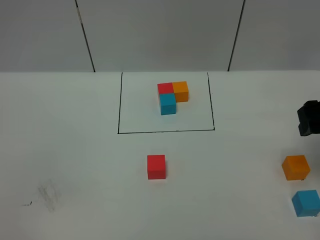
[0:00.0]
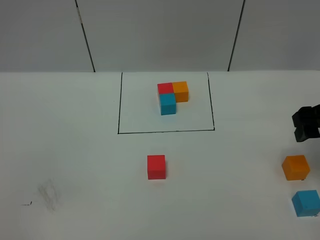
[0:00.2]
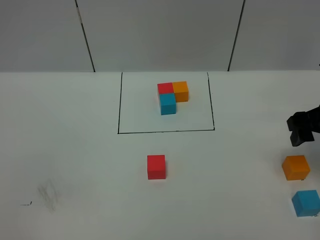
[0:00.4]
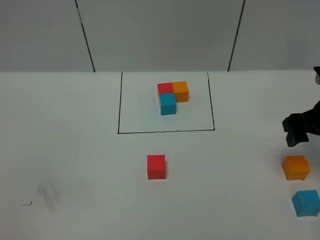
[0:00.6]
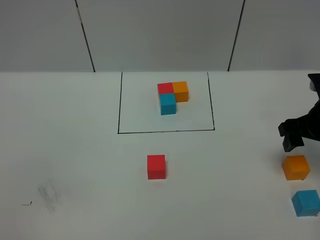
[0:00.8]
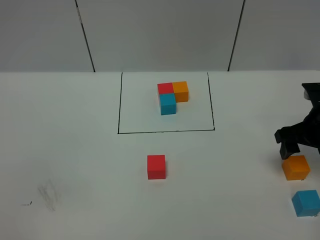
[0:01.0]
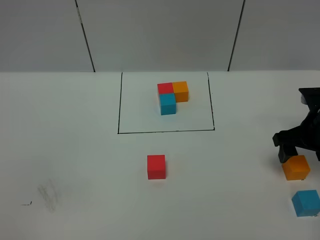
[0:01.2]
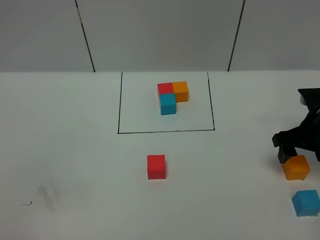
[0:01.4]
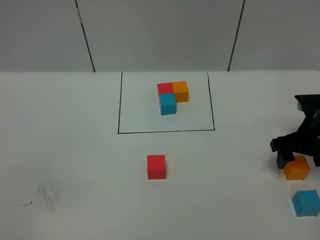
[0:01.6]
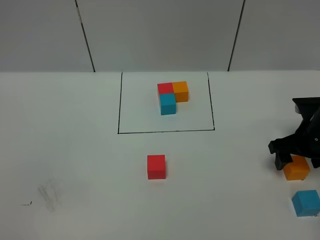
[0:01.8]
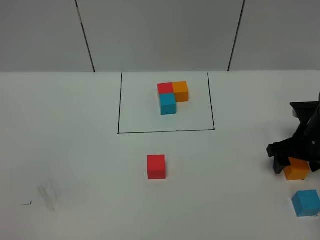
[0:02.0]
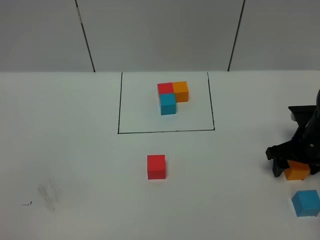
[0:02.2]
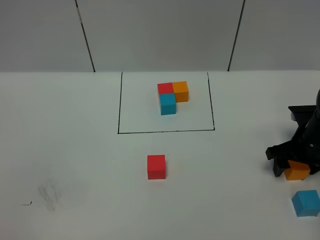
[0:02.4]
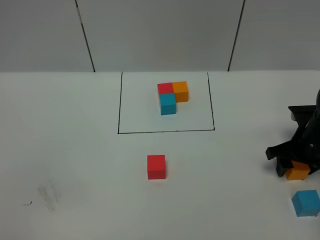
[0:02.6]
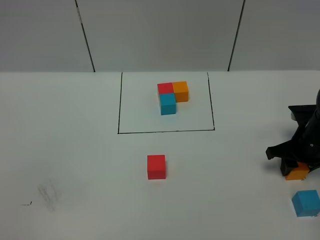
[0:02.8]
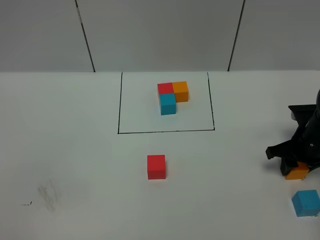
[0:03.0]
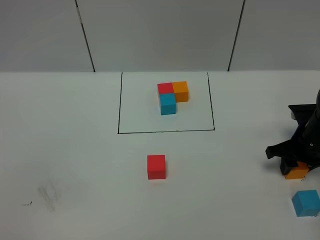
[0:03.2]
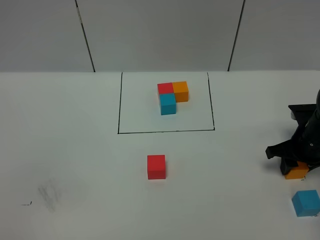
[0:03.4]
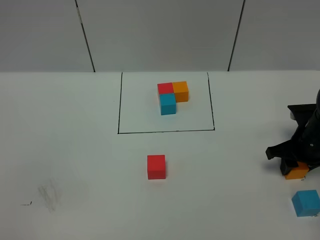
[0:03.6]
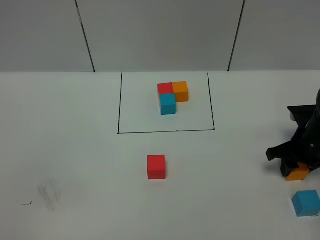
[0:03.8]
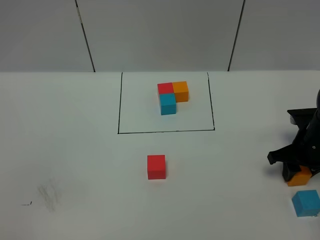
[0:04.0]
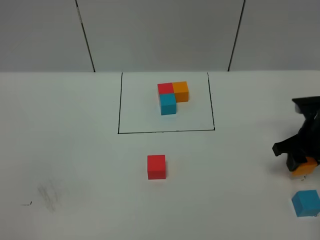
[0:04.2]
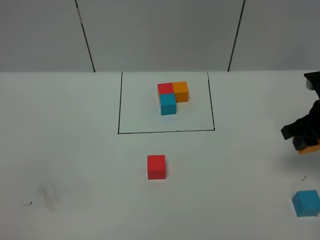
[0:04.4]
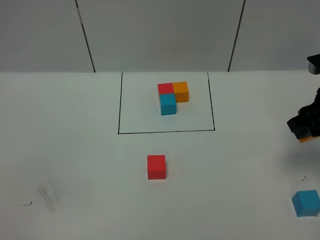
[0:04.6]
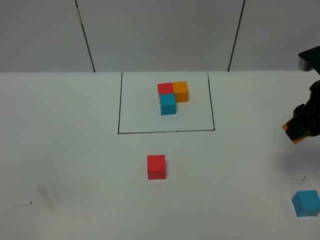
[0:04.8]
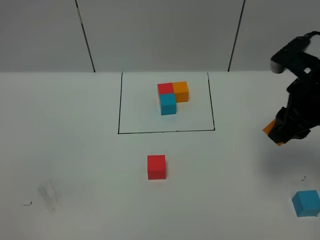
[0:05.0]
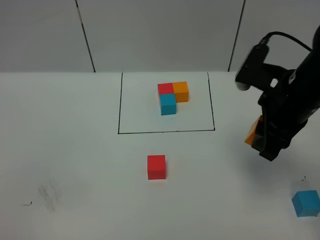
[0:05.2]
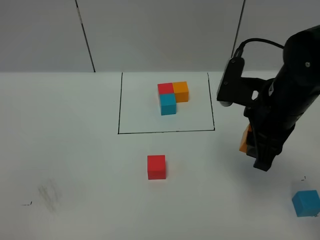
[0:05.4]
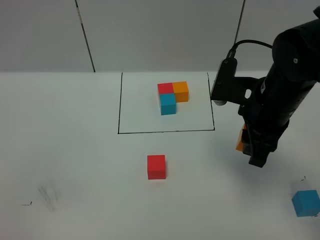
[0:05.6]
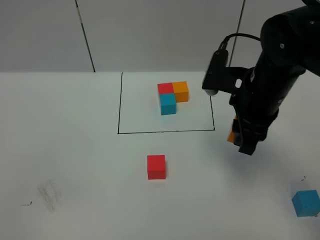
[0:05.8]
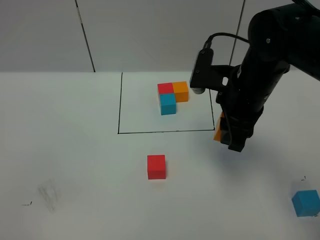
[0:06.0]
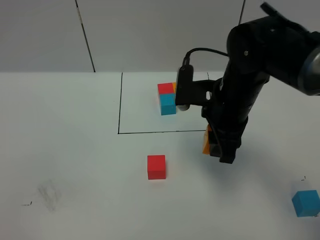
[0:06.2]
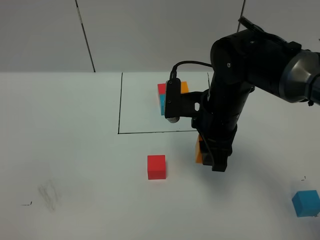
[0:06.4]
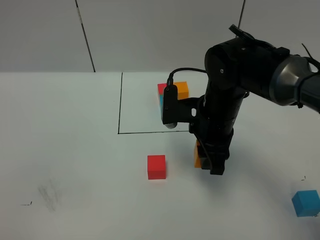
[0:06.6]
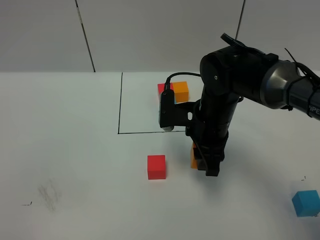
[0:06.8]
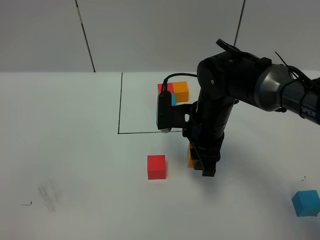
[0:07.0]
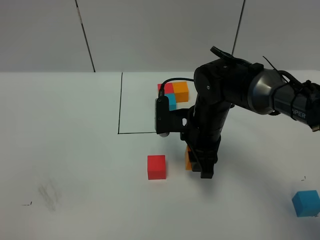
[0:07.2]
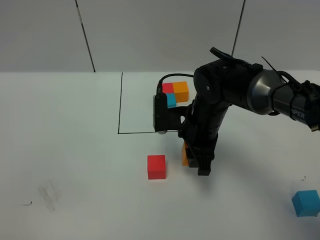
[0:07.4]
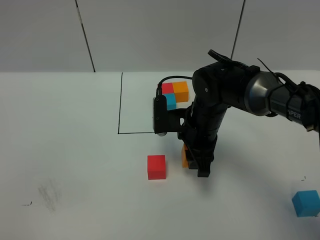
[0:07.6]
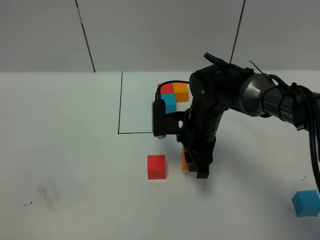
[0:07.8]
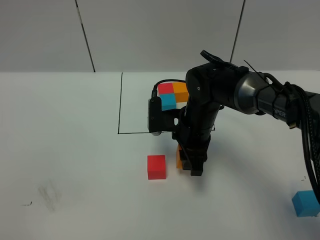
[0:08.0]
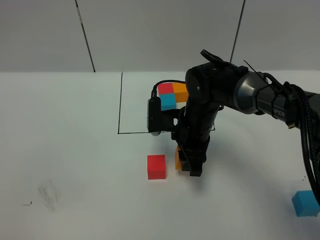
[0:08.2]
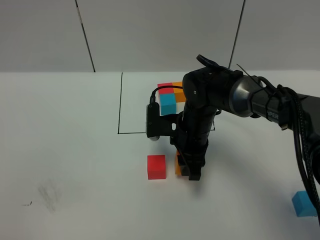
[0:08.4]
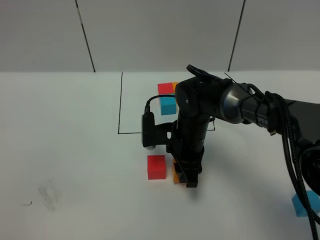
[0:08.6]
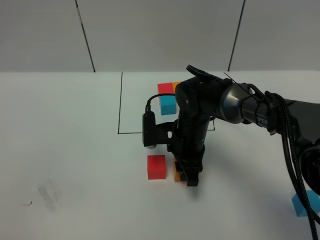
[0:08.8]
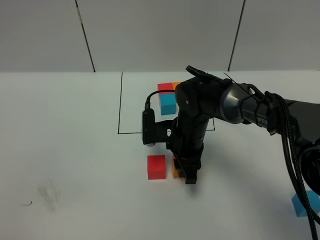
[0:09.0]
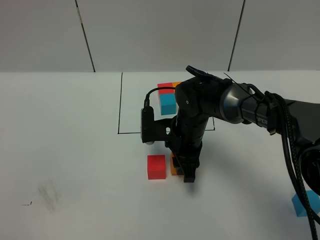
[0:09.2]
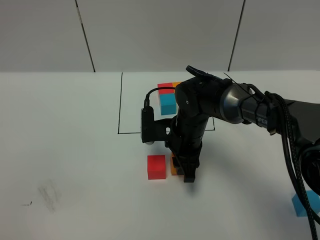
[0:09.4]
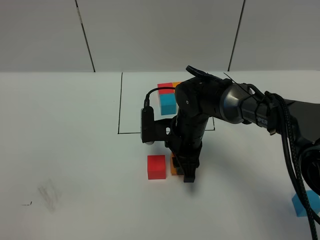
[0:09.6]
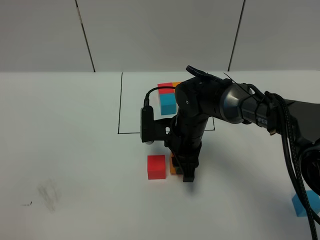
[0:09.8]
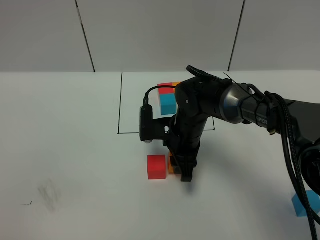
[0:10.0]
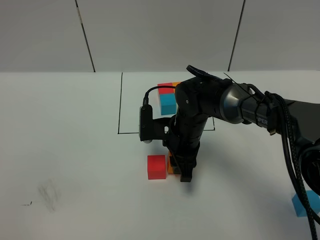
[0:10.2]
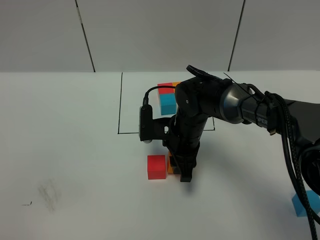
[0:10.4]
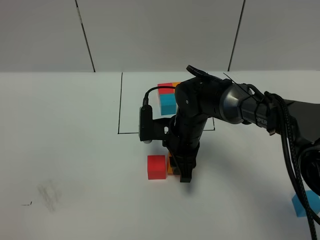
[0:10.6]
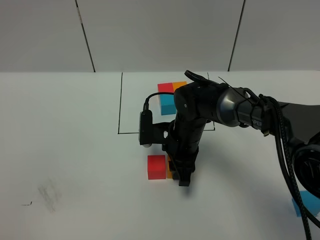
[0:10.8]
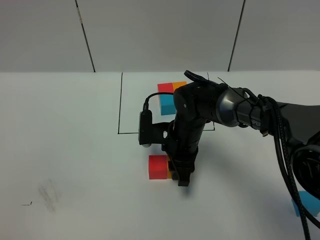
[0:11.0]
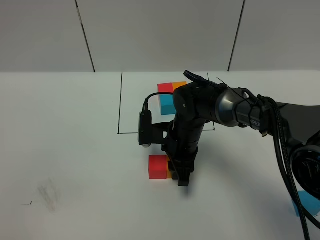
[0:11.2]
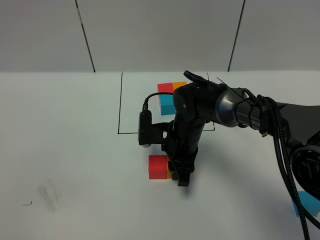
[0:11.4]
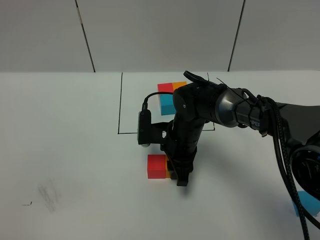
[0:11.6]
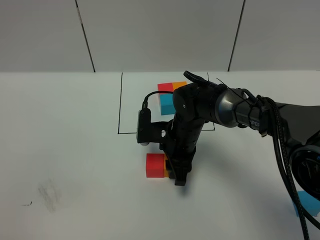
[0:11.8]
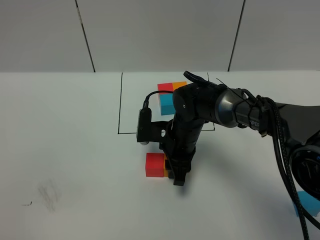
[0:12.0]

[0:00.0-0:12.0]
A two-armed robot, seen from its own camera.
Task of the whole recording: According to the building block template in front, assemble the scattered blocks together.
0:00.0 to 0:01.6: The right gripper goes roughly 15 cm downward and forward.
0:01.6 to 0:03.0: The right gripper closes up.
0:03.0 to 0:04.4: The right gripper moves upward, some 10 cm.
0:04.4 to 0:06.0: The right gripper heads to the left, covering roughly 15 cm.
0:06.0 to 0:07.6: The right gripper goes approximately 10 cm downward and to the left.
0:07.6 to 0:09.0: The grippers stay close to where they were, moving slightly.
0:09.0 to 0:10.4: Neither gripper changes place.
0:10.4 to 0:12.0: The grippers stay close to where they were, moving slightly.

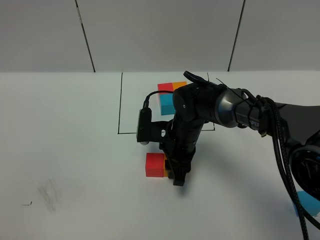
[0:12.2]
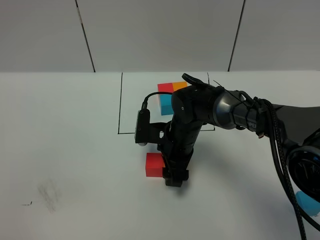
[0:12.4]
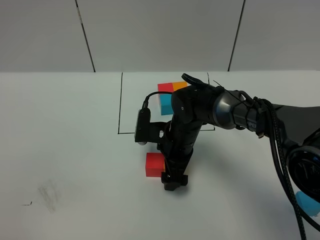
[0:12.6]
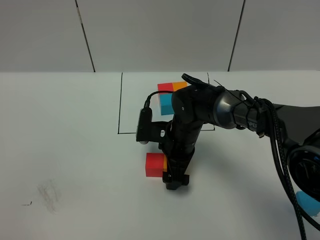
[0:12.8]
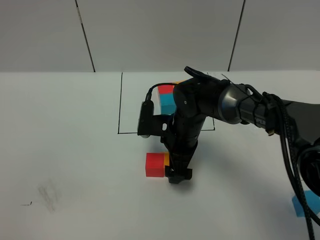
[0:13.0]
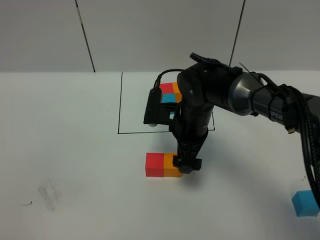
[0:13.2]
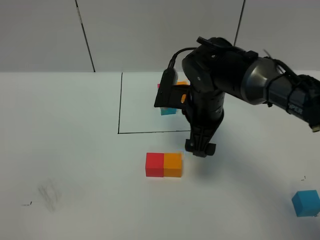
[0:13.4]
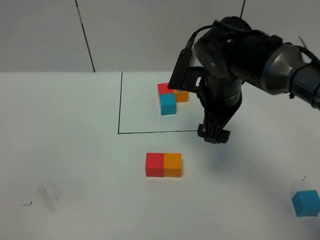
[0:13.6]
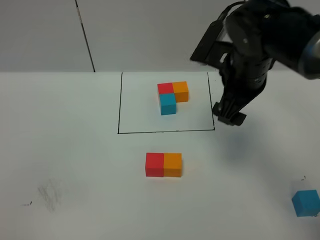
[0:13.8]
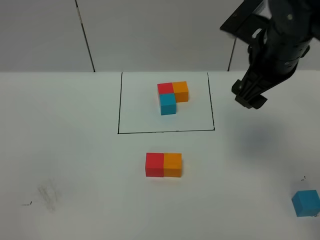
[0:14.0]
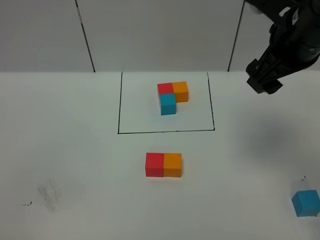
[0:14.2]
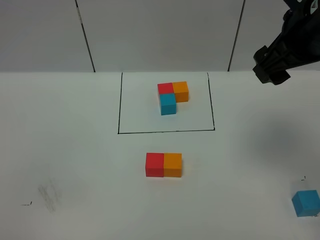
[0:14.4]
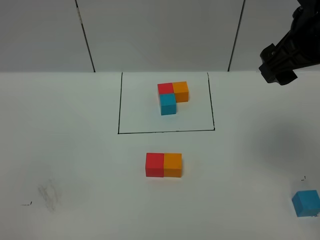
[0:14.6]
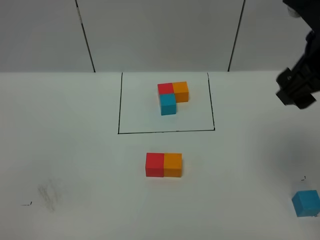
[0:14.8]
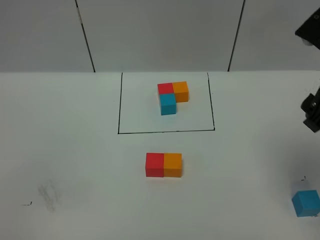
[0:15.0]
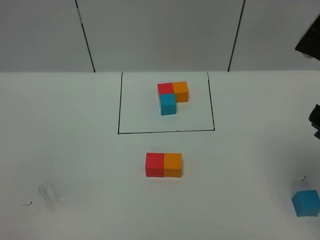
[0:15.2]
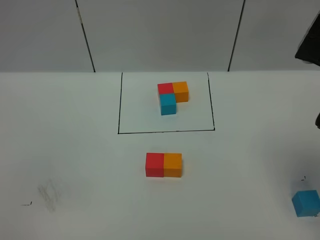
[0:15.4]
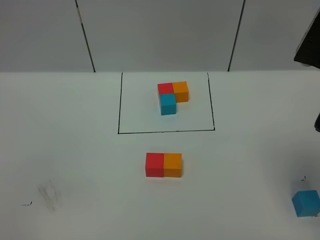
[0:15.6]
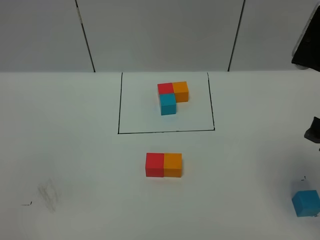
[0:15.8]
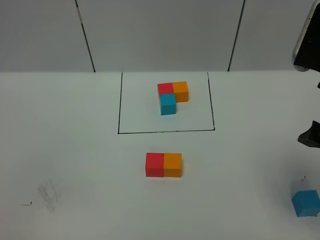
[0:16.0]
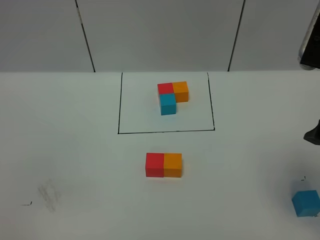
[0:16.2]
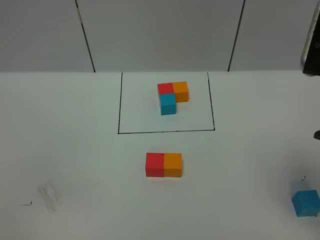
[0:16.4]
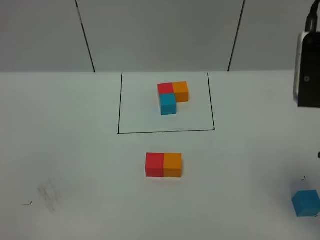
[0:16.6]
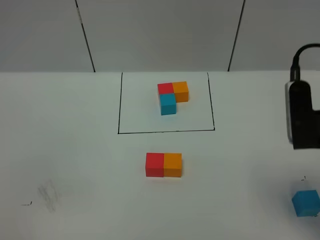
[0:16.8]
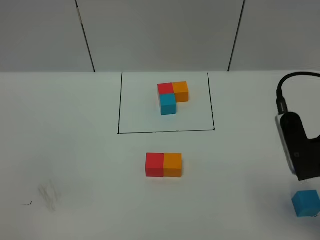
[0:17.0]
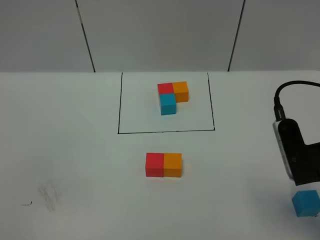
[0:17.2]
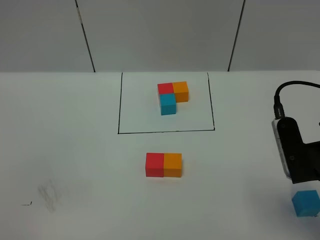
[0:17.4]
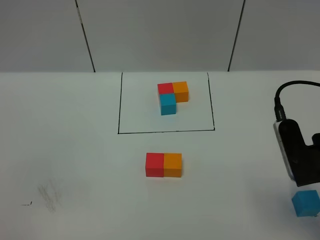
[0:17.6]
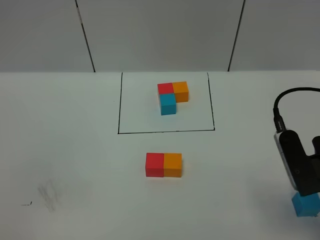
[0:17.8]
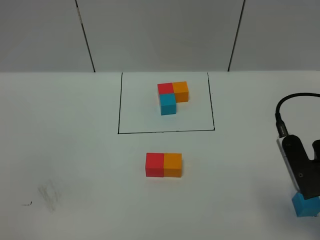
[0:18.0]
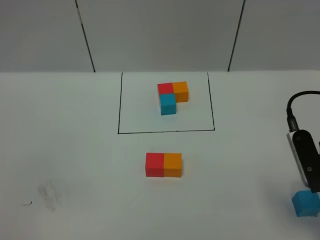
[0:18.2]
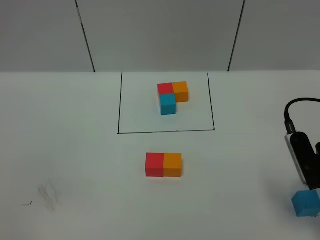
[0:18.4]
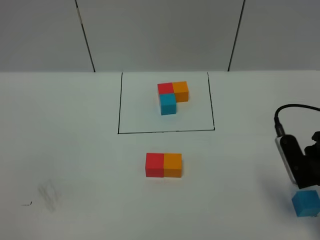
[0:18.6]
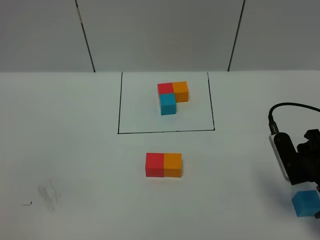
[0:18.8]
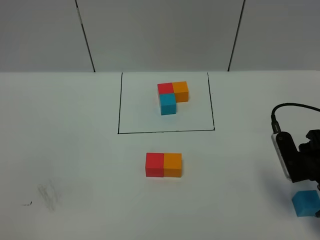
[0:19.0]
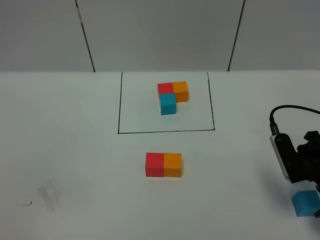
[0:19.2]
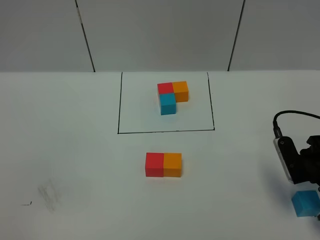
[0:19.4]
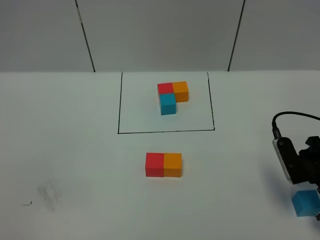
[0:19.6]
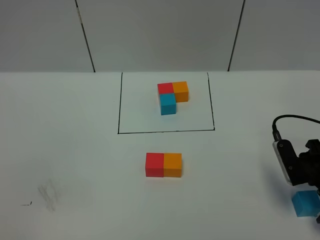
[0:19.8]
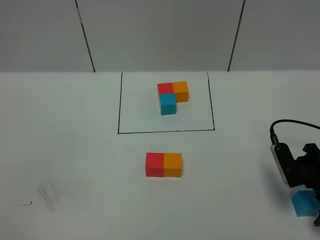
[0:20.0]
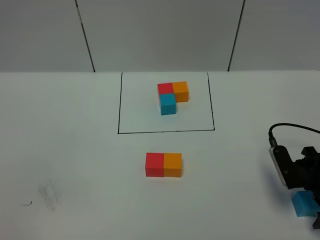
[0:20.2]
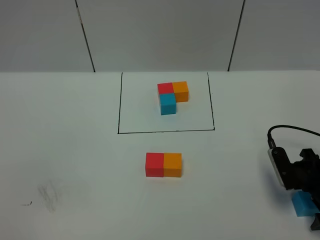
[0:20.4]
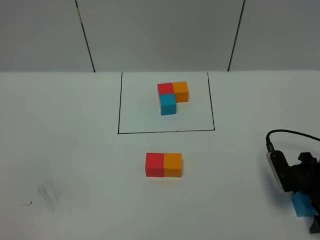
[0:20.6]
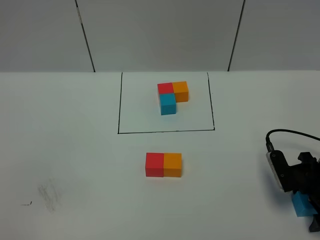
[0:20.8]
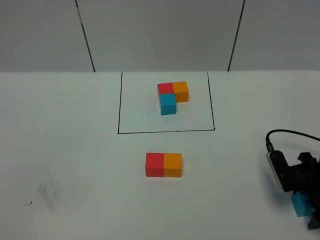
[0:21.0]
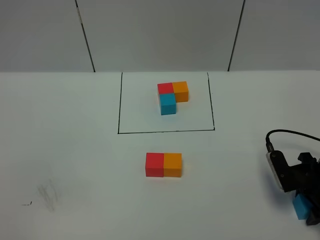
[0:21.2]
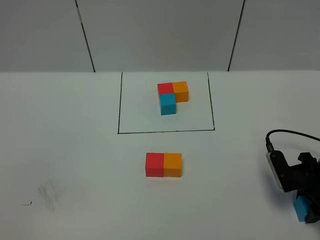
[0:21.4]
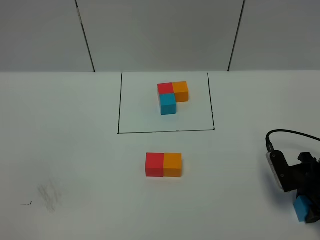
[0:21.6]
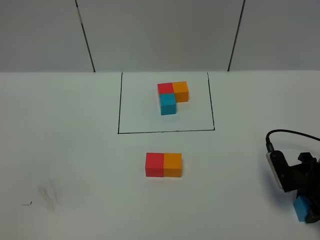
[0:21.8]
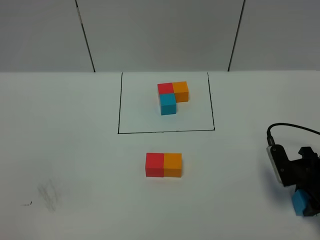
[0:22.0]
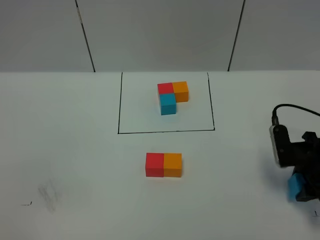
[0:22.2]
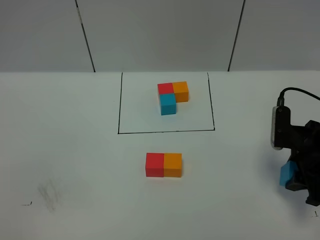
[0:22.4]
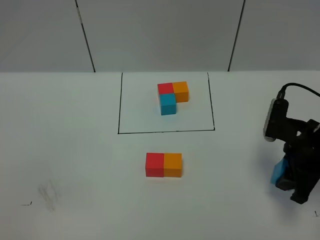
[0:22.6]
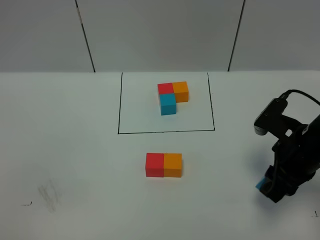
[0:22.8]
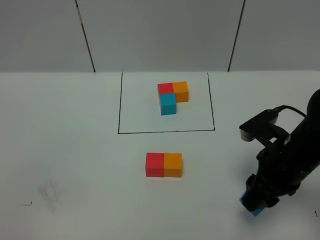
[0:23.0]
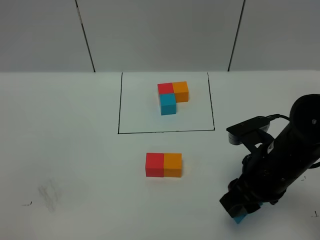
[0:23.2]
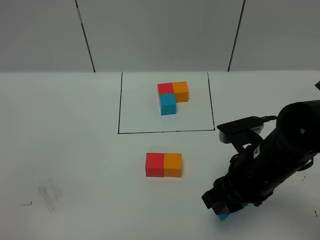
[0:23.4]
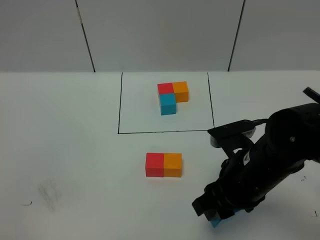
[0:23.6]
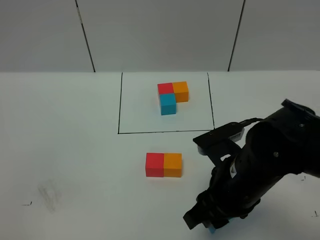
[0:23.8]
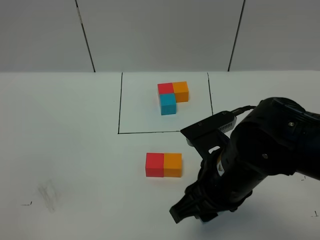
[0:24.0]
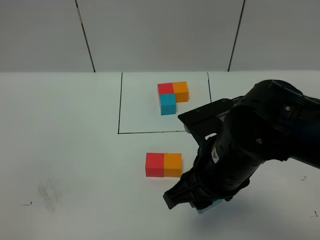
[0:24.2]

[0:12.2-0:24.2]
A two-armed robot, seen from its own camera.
Task of the whole recording: According to the building block template in front, assemble the scattered blocks together.
0:12.2 to 0:13.8: The right gripper moves upward and to the right, roughly 20 cm, and opens up.
0:13.8 to 0:15.2: The right gripper shifts some 15 cm backward, to the right and upward.
0:16.6 to 0:18.2: The right gripper goes some 10 cm downward, and closes, then opens again.
0:18.2 to 0:19.8: The right gripper travels downward and forward by approximately 10 cm.
0:19.8 to 0:21.2: The right gripper closes.
0:21.2 to 0:22.6: The right gripper moves upward, approximately 10 cm.
0:22.6 to 0:24.2: The right gripper heads to the left, backward and upward, covering roughly 20 cm.
